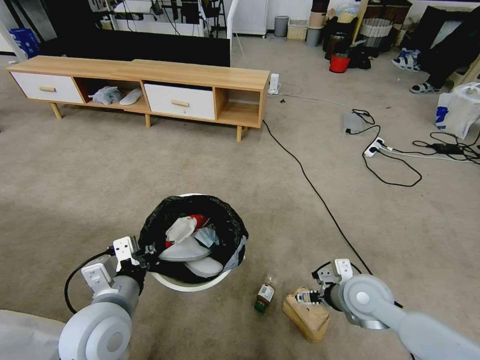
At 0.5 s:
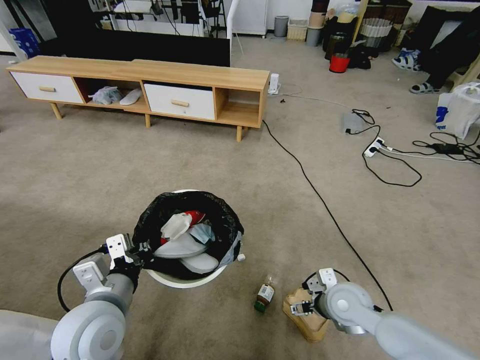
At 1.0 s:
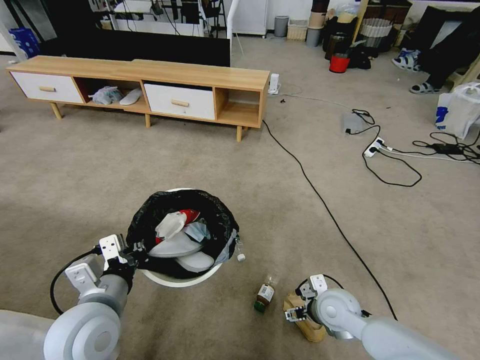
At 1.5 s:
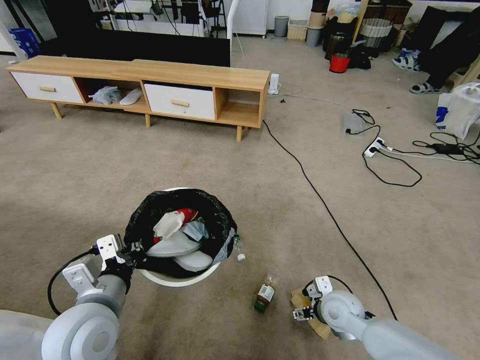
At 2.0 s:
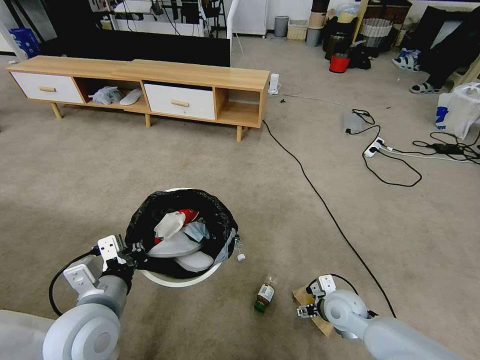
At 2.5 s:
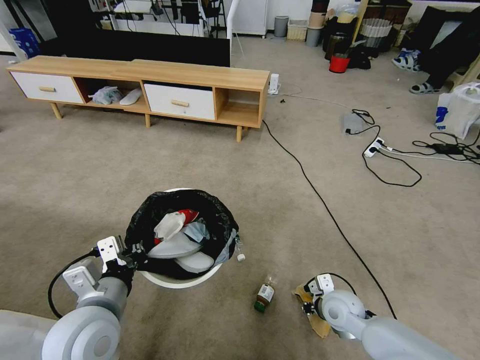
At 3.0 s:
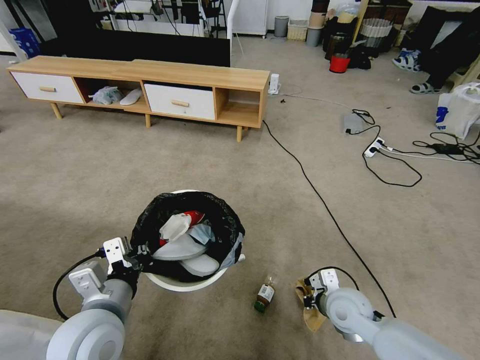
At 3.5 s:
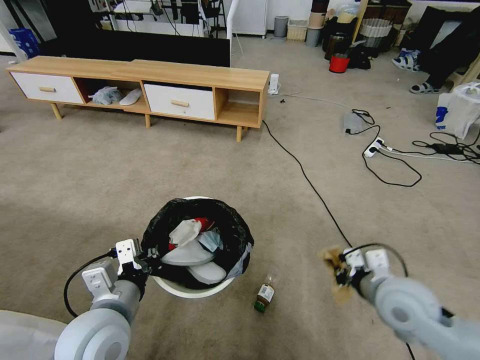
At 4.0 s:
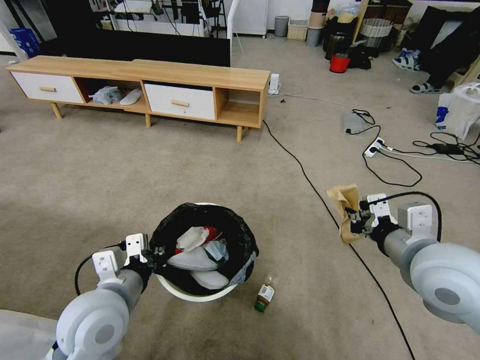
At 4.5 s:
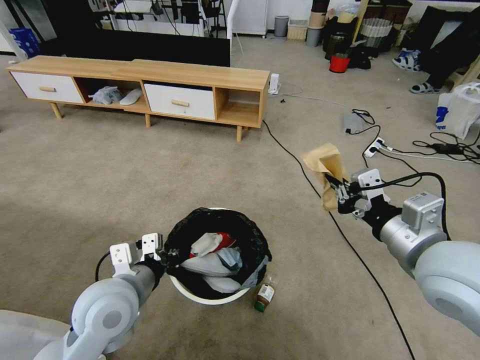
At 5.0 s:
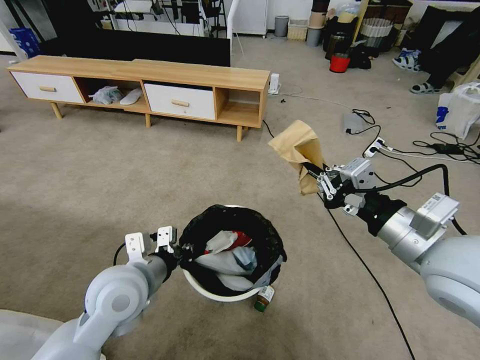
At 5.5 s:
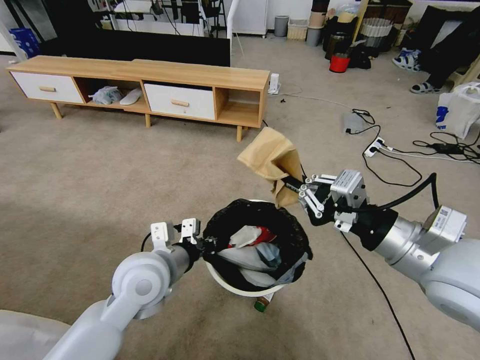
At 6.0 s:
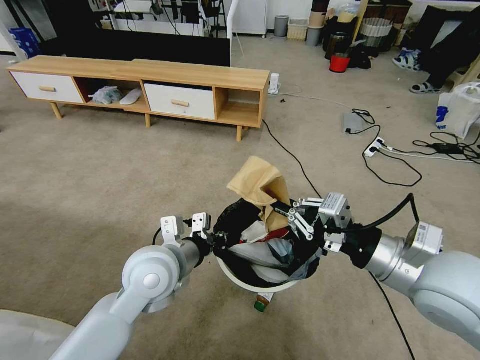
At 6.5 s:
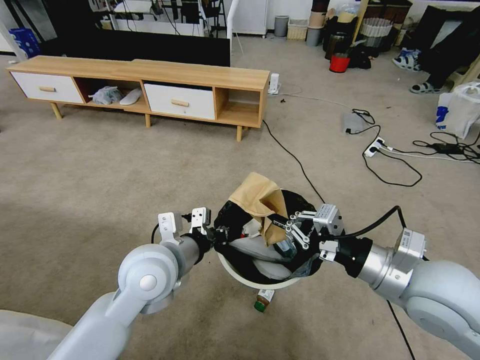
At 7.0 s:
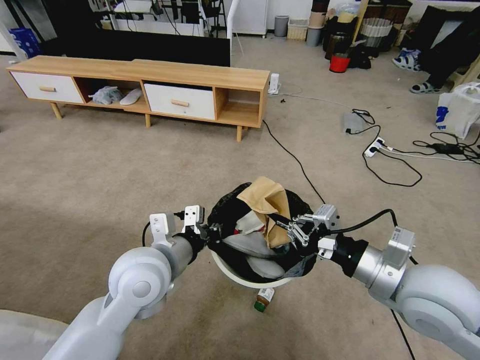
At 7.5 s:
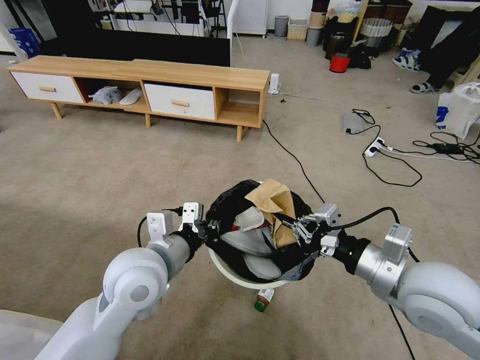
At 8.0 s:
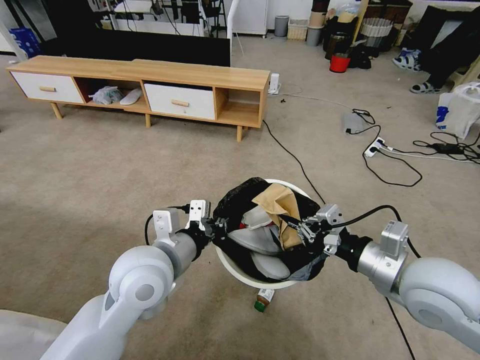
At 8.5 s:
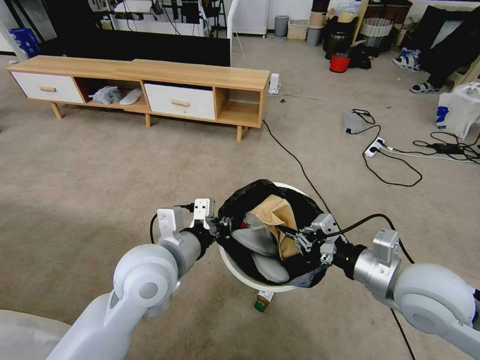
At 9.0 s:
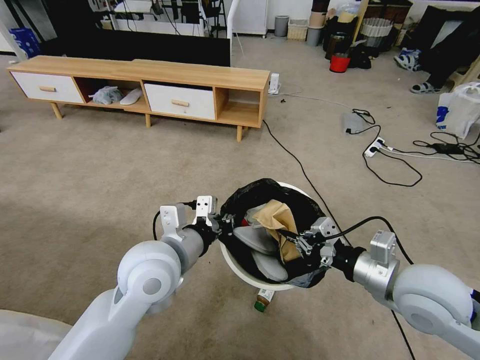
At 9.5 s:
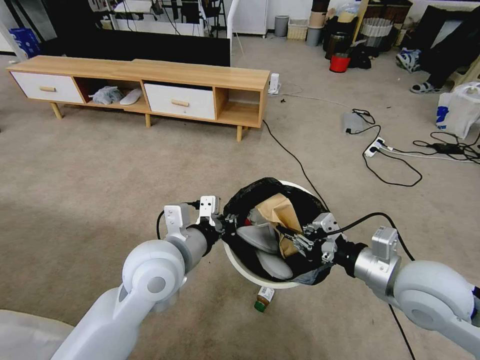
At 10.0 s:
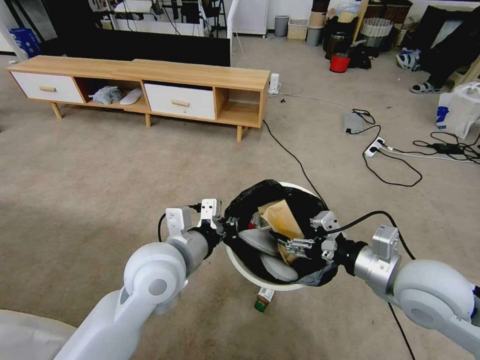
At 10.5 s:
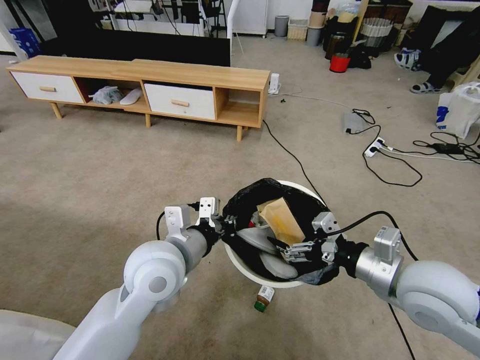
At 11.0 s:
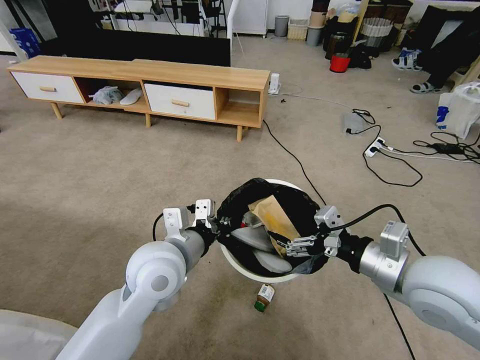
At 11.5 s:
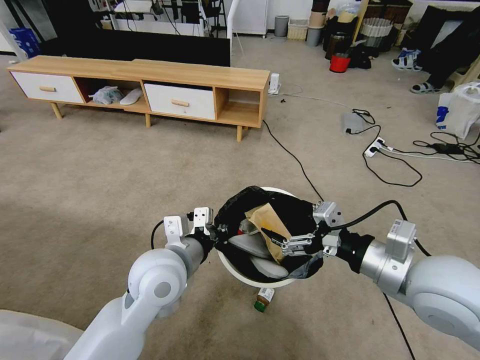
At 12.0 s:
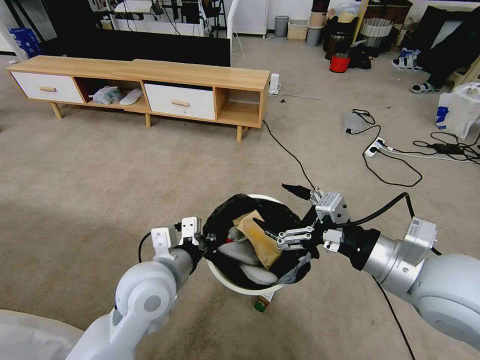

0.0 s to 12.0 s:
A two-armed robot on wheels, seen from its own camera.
Task of the whole recording: Pick up the trash bin and place the garbage on the floor into it.
0.0 to 2.0 s: The right gripper heads downward, covering about 10 cm.
2.0 to 4.0 s: The right gripper travels upward by some 30 cm, and closes up.
4.0 to 6.0 s: The left gripper moves forward and to the right, roughly 10 cm.
8.0 to 10.0 s: The right gripper opens.
10.0 to 12.0 s: The right gripper travels upward by about 5 cm.

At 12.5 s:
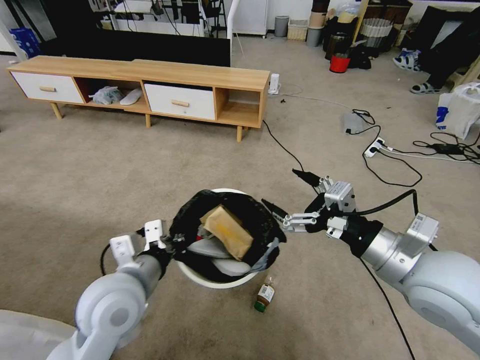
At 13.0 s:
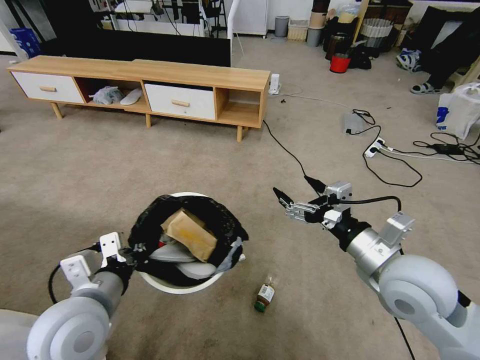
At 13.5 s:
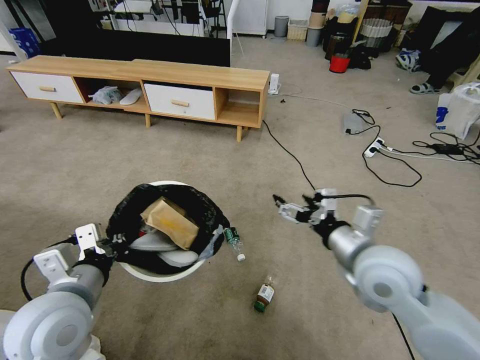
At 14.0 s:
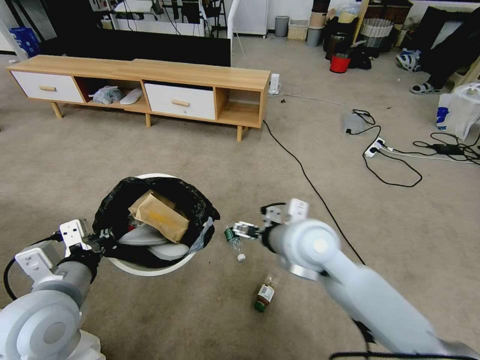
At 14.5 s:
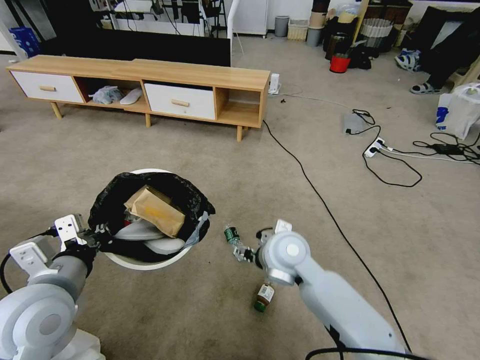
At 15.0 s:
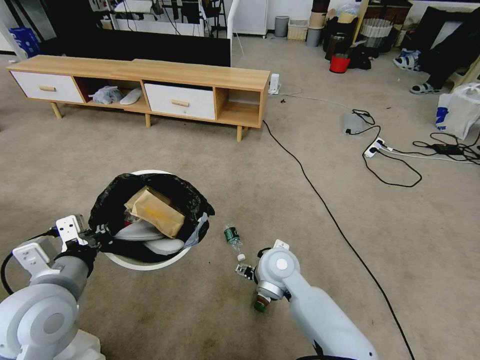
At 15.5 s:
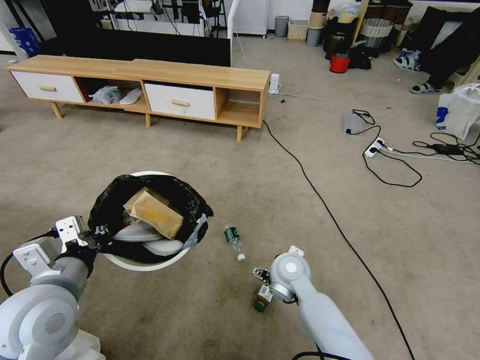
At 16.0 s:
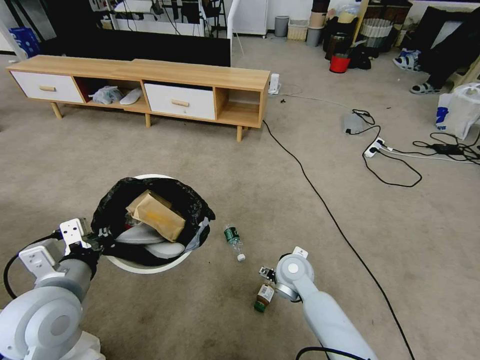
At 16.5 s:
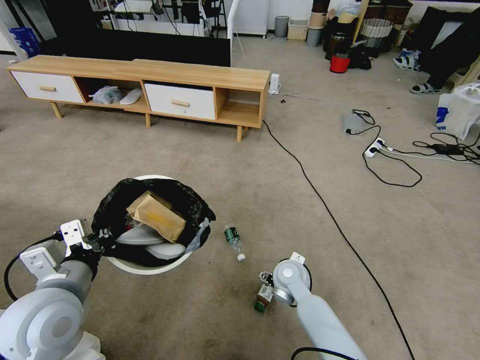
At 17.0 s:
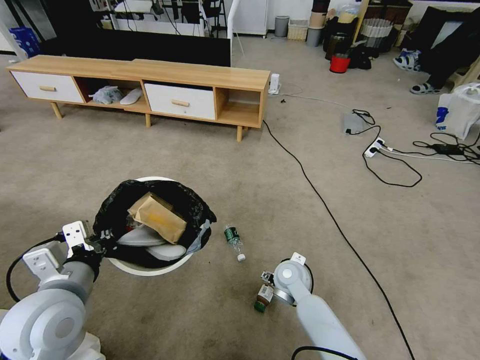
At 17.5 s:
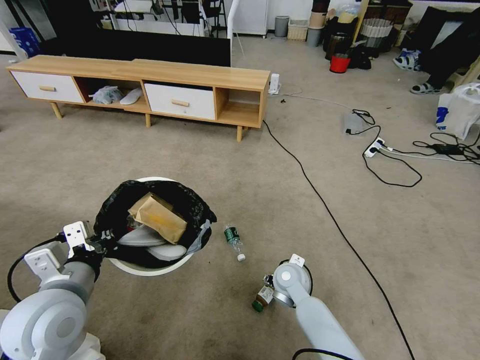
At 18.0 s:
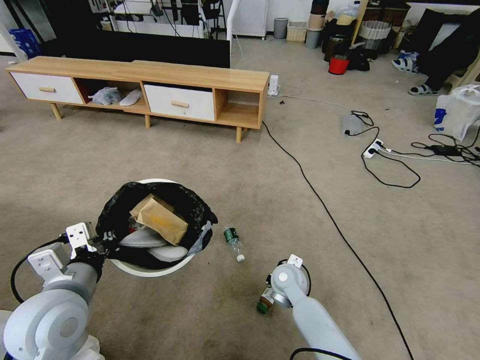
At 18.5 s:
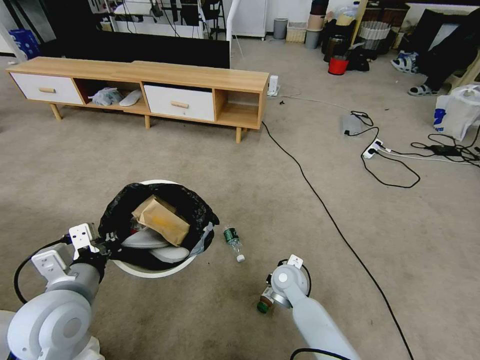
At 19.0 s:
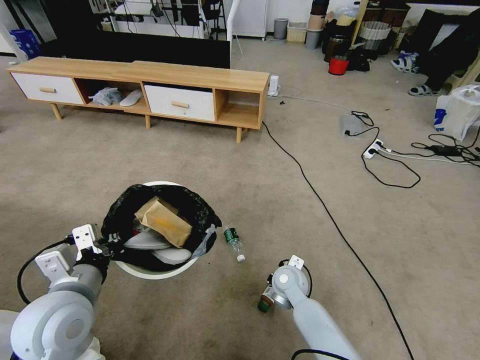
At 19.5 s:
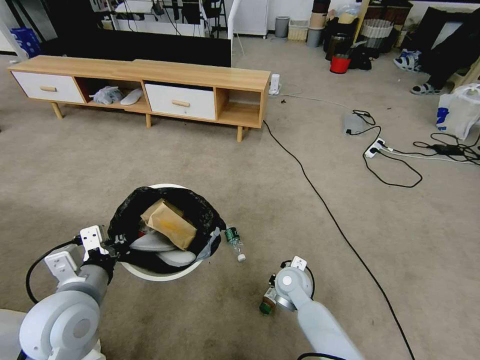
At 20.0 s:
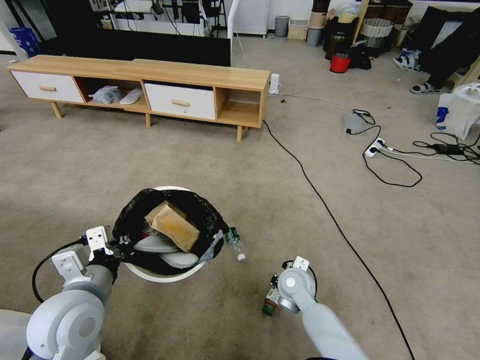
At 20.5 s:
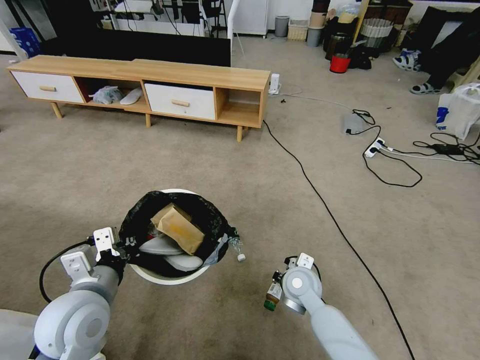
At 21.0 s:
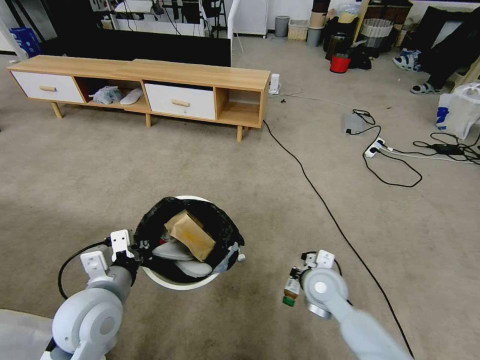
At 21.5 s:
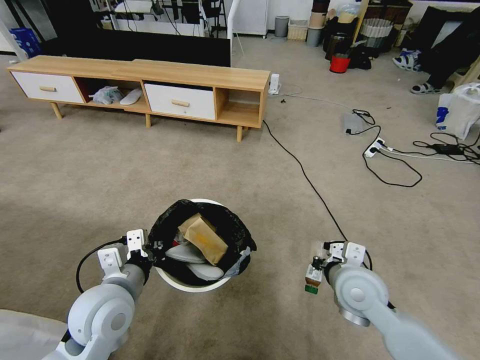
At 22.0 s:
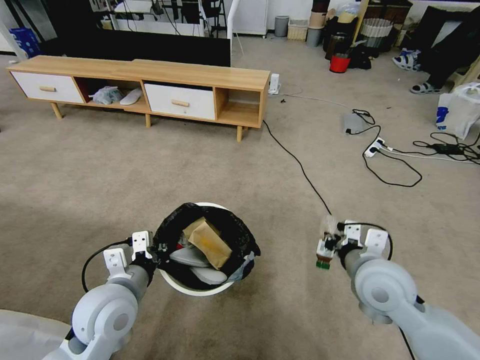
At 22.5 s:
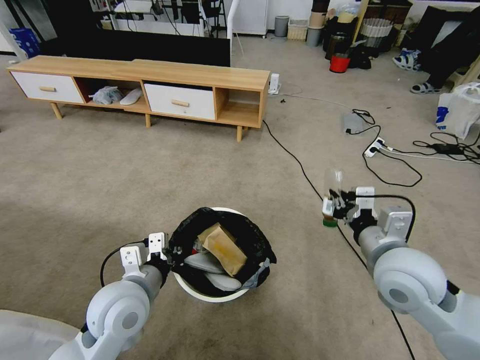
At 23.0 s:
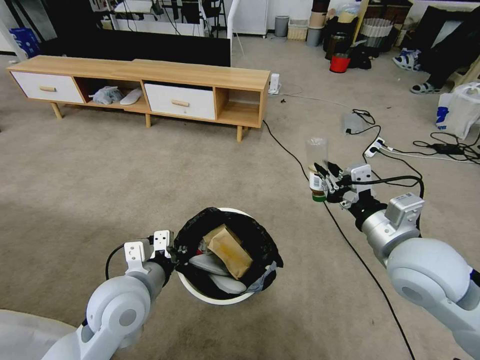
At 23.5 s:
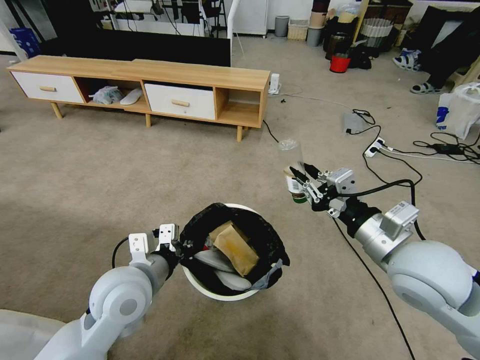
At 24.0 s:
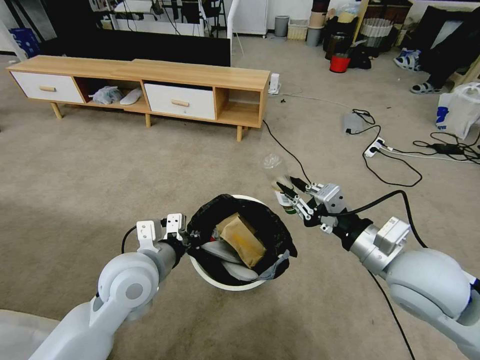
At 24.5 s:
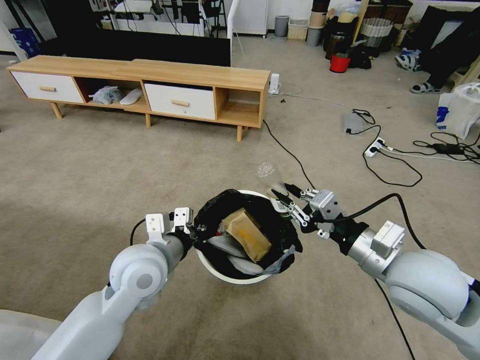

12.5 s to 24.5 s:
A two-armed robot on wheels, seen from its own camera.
Task of the whole recording: Pick up the trash bin and place the garbage on the floor into it.
12.5 to 14.5 s: The right gripper is displaced to the left, downward and forward by roughly 25 cm. The left gripper moves to the left, approximately 10 cm.
14.5 to 16.5 s: The right gripper heads downward, covering about 15 cm.
16.5 to 18.5 s: The right gripper closes up.
20.5 to 22.5 s: The right gripper travels upward and to the right by about 25 cm, while the left gripper shifts roughly 5 cm to the right.
22.5 to 24.5 s: The left gripper goes approximately 5 cm forward.

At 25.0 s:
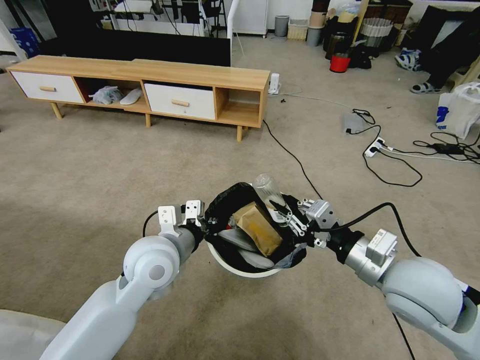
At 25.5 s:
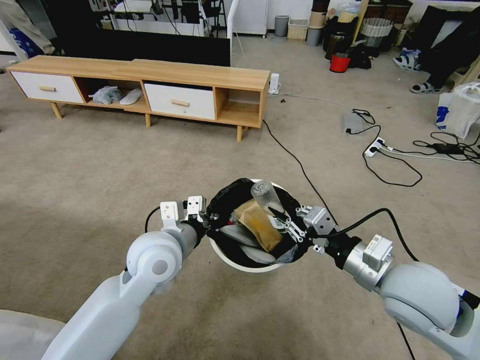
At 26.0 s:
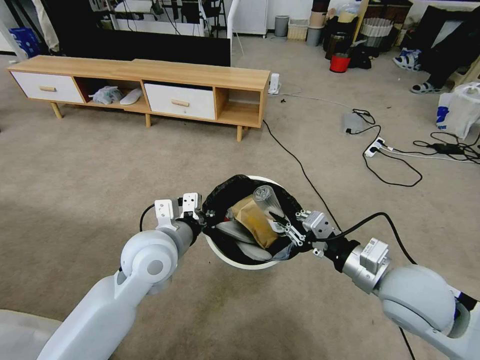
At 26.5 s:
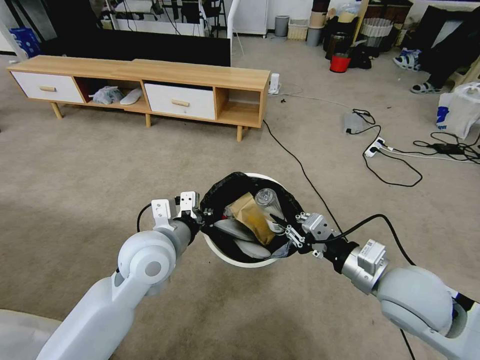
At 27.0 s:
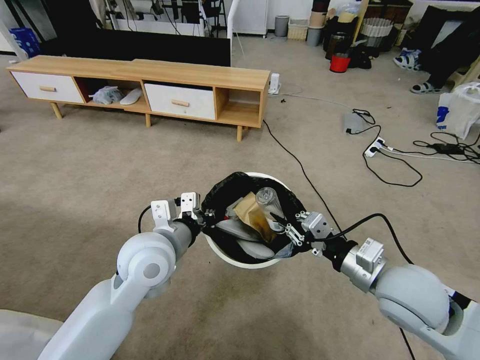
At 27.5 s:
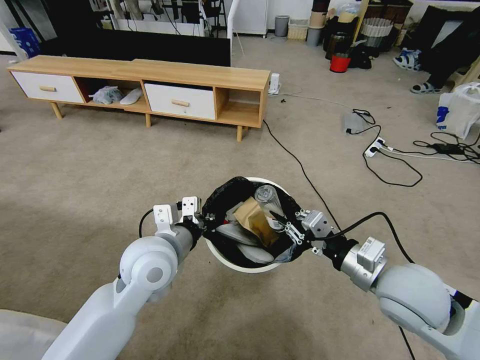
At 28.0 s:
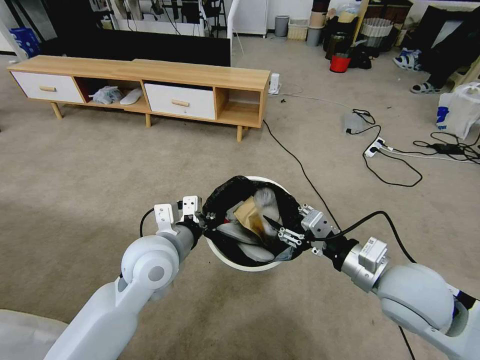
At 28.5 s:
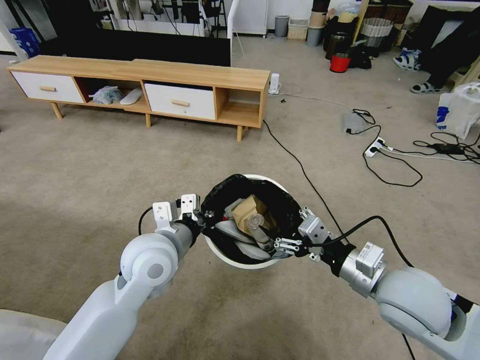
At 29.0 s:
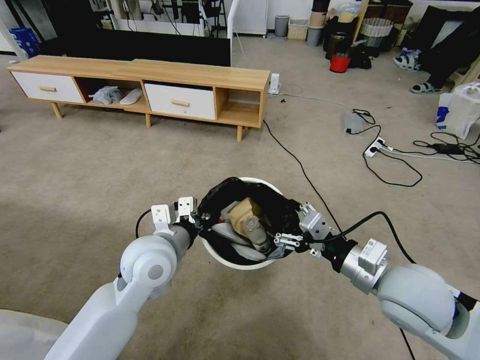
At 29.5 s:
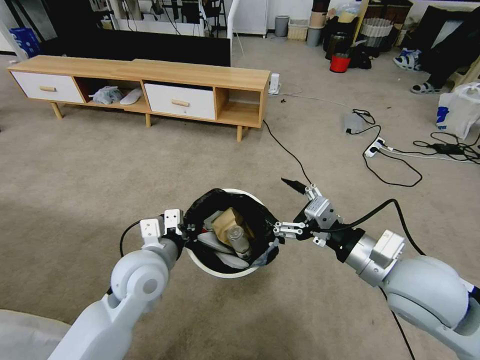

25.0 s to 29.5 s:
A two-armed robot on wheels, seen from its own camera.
Task of the whole recording: Pick up the trash bin and place the garbage on the floor into it.
25.0 to 27.0 s: The grippers move only a little.
27.0 to 29.5 s: The right gripper opens its fingers.
